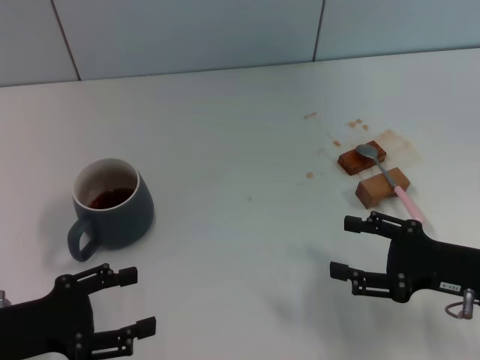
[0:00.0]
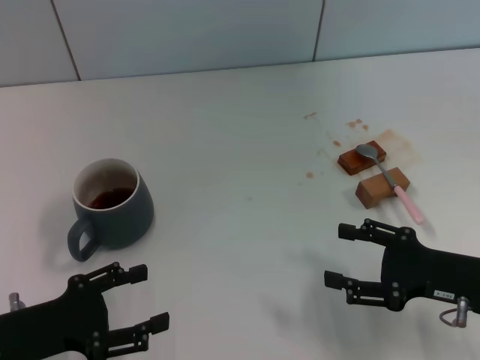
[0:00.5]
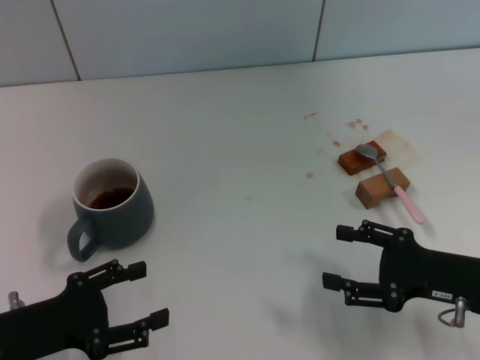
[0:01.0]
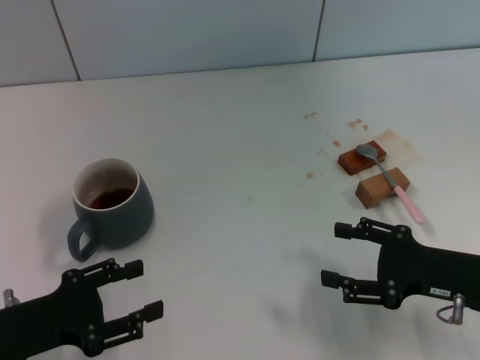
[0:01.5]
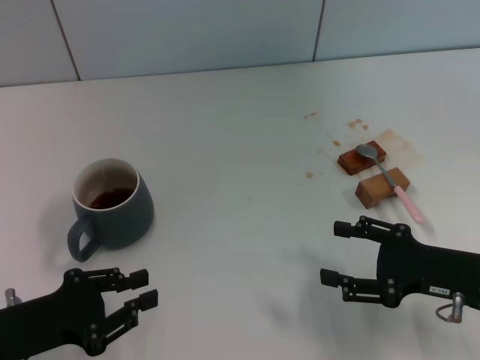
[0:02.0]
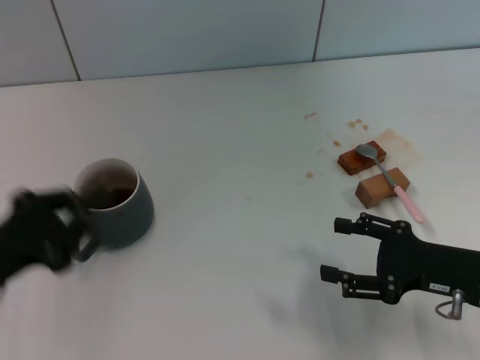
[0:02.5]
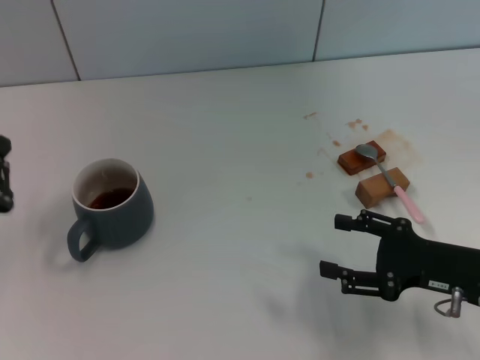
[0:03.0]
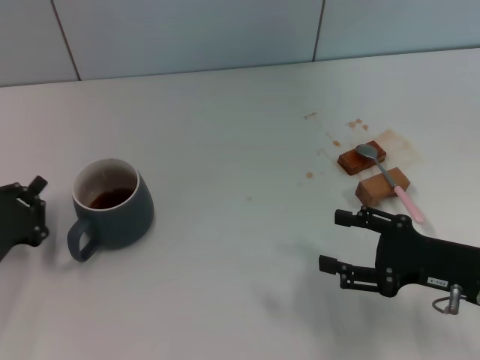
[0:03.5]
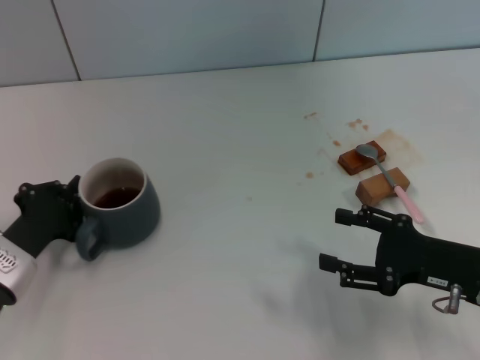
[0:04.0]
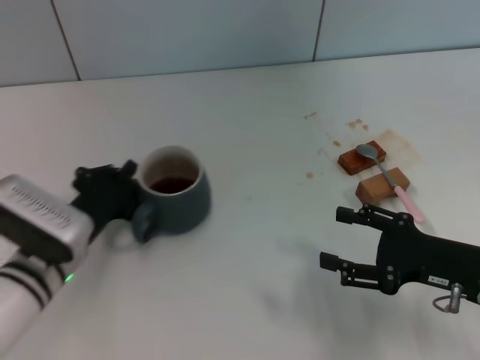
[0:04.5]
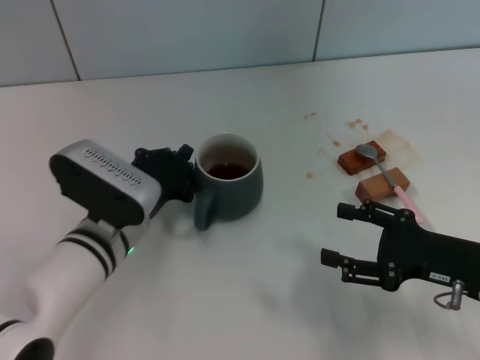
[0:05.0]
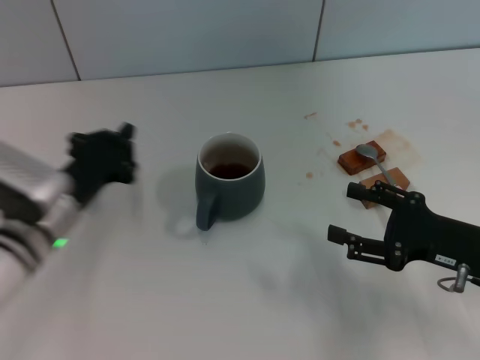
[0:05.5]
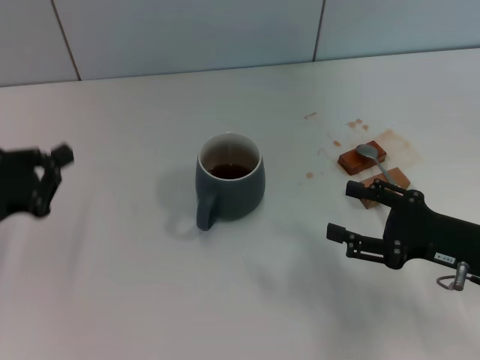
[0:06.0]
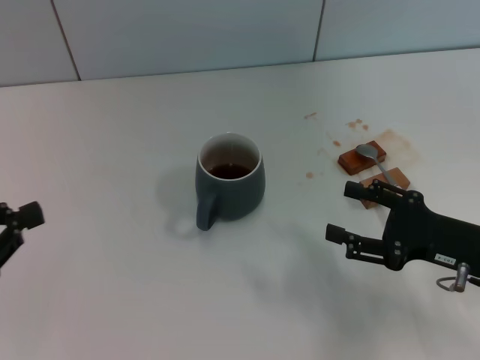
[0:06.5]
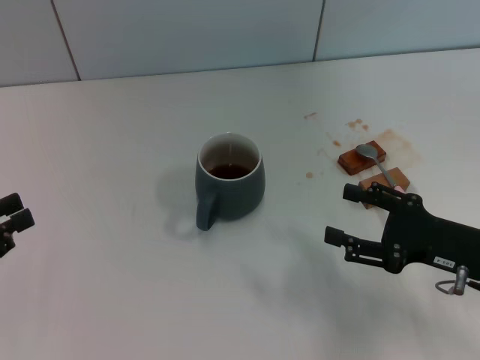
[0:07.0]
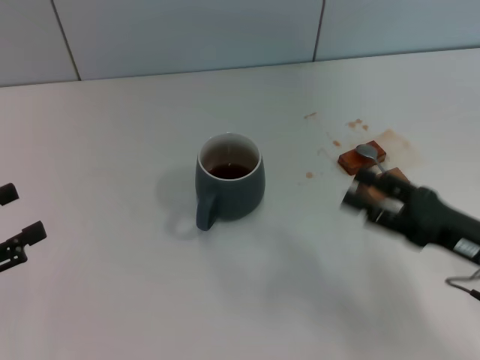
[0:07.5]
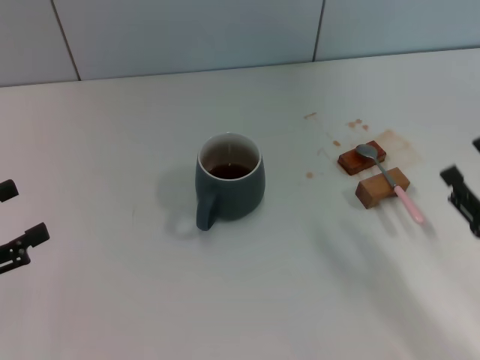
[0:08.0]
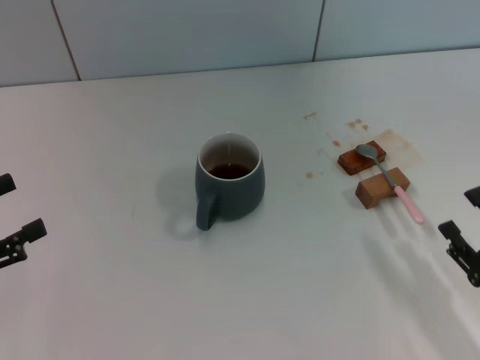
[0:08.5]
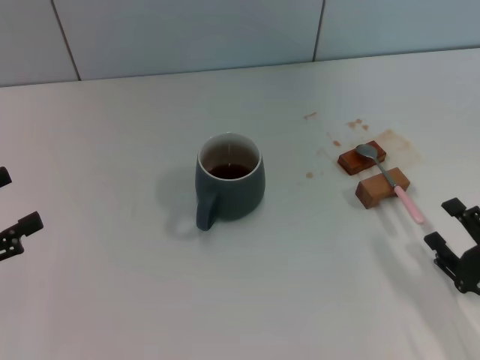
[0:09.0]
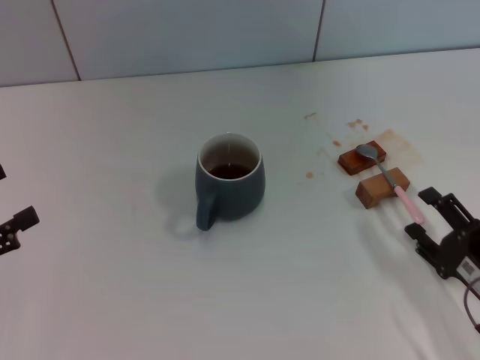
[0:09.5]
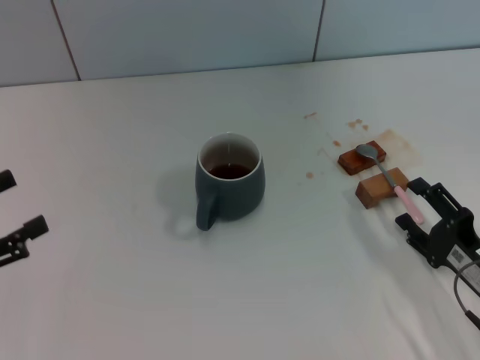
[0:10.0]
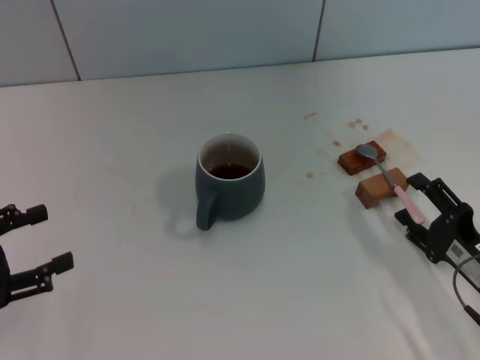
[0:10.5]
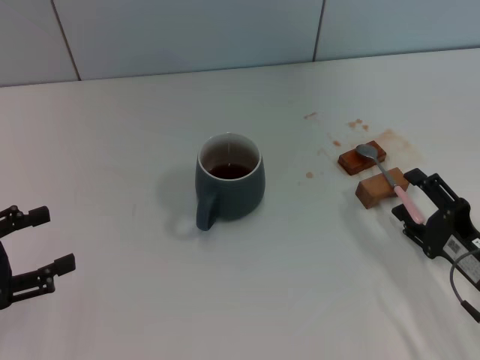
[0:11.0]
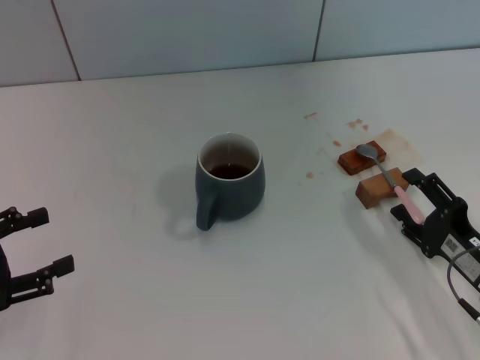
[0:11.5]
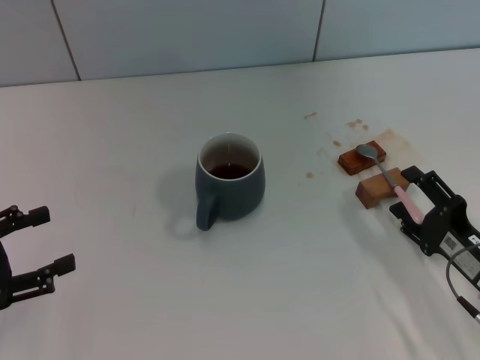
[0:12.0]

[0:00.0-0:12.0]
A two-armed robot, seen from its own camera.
Task of the whole recording: Move the grey cup to the center, lift the pink spoon, stir it three times in the cup, and put the spoon into the cup.
Step, 0:00.0 to 0:05.0: Move the cup with coffee to the center of view with the left gripper.
0:00.0 to 0:02.0: The left gripper closes.
0:02.0 to 0:04.0: The left gripper heads forward, covering approximately 5 cm, and closes up.
0:04.0 to 0:06.0: The left gripper is displaced upward by approximately 5 cm, and goes to the right and returns, some 15 cm each way.
0:06.0 to 0:08.0: Both grippers move backward, approximately 5 cm. The left gripper opens up.
0:08.0 to 0:12.0: The grippers move only a little.

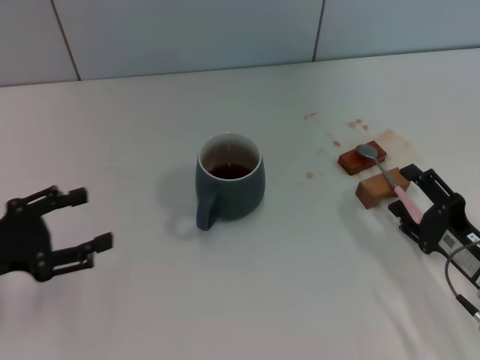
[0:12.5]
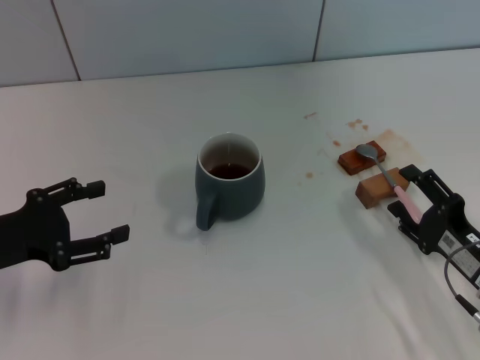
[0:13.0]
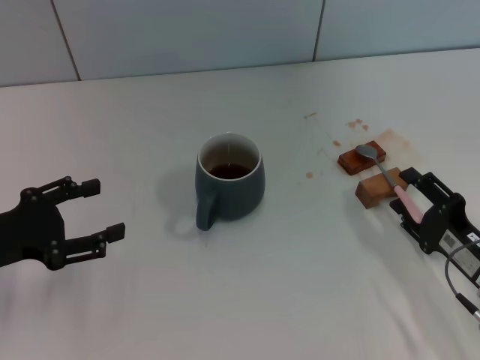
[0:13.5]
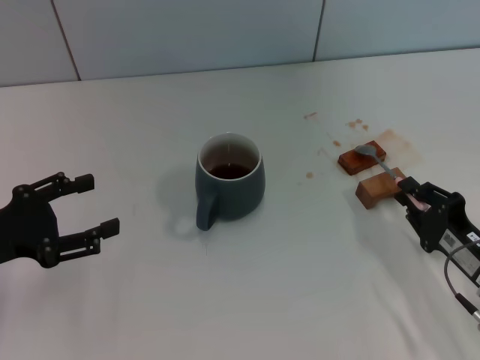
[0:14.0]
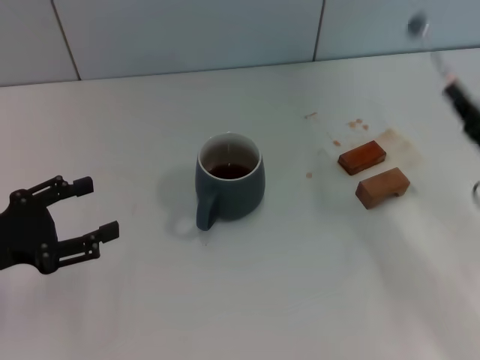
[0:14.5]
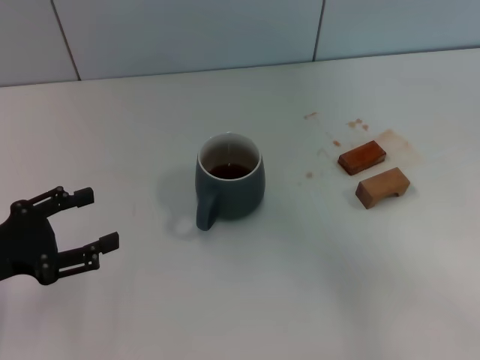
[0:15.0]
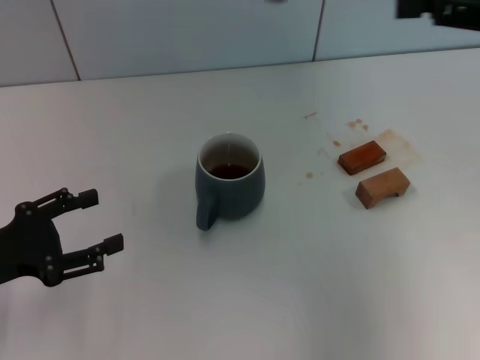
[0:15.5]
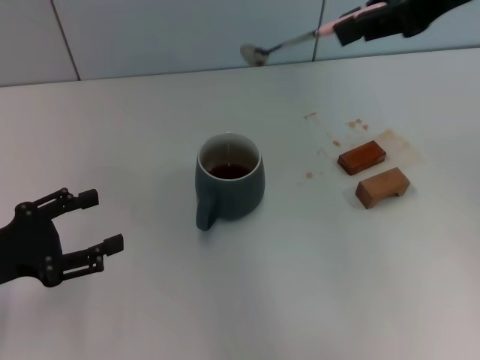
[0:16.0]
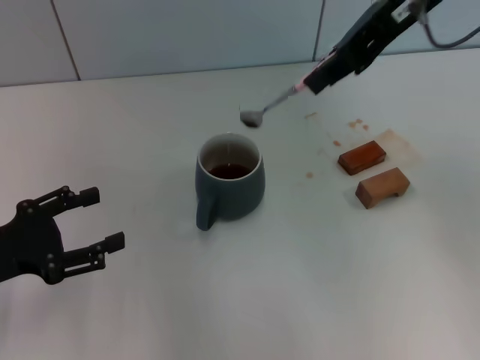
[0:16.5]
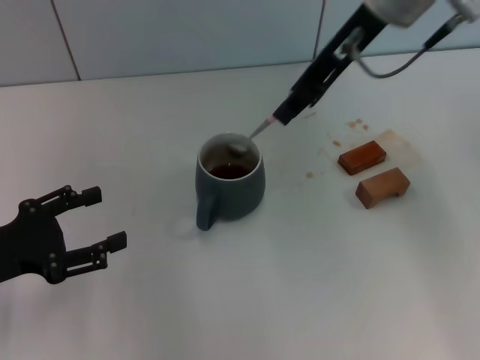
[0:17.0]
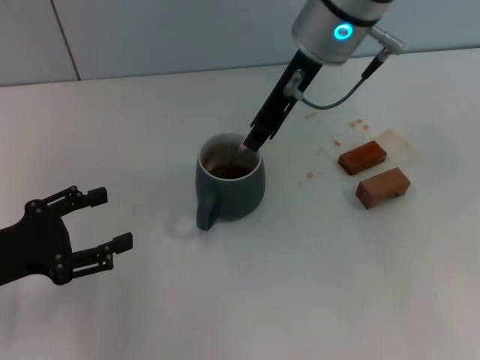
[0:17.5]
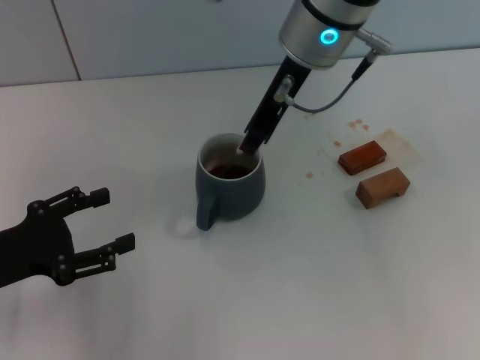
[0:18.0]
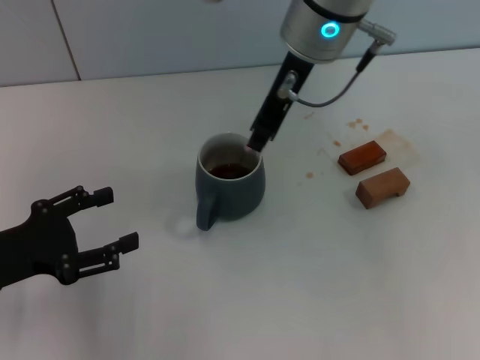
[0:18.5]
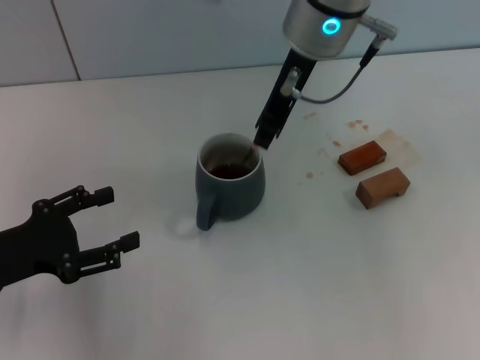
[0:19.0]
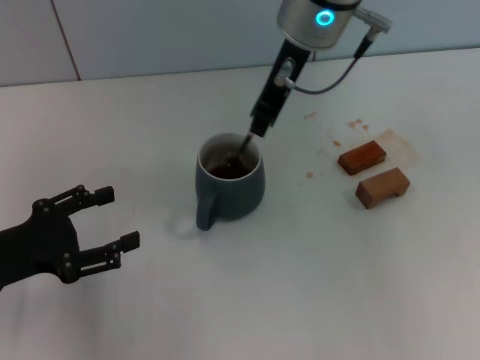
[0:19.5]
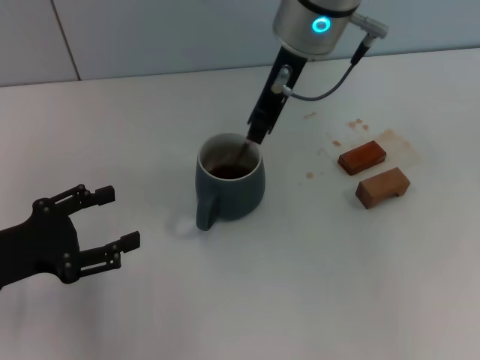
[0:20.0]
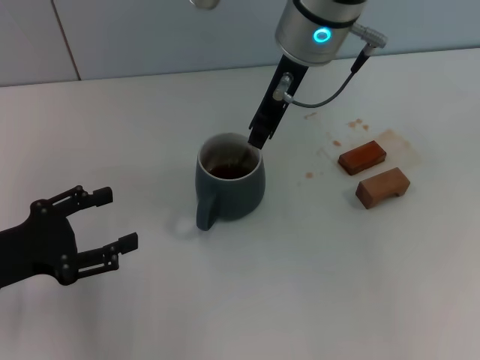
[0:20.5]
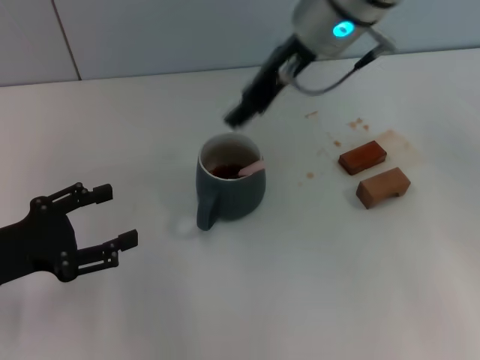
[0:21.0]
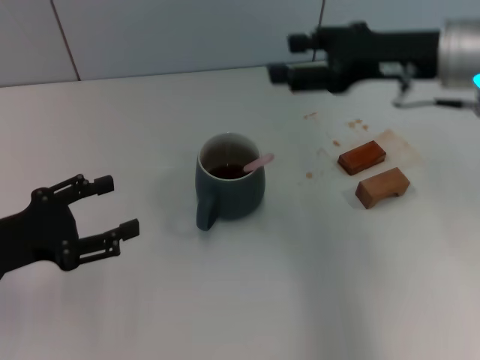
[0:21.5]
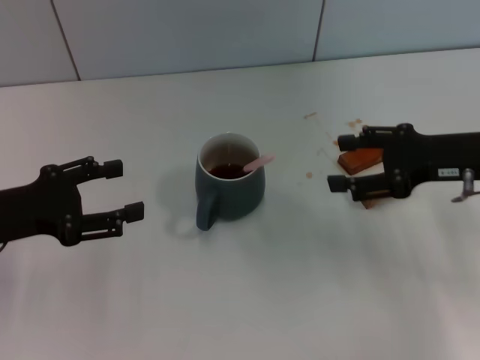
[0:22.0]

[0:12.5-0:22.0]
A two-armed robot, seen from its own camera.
Task of the whole recording: Move the grey cup to the center, lift the pink spoon, stir it three times in the cup, and put the spoon into the cup.
Step, 0:12.5 to 0:14.5: Pick up the spoon with the right gripper.
Step, 0:15.0 to 0:20.0: Stir the coffee in the cup with the right gripper.
0:12.5 to 0:14.5: The right gripper heads upward, covering approximately 5 cm, and closes its fingers.
0:14.5 to 0:16.5: The right gripper heads upward, to the left and forward, covering some 35 cm.
0:16.5 to 0:18.0: The right gripper heads to the left and downward, covering approximately 15 cm.
0:18.0 to 0:20.0: There are only small adjustments of the grippers.
0:20.0 to 0:22.0: The left gripper ends up roughly 5 cm from where it was. Meanwhile the right gripper moves to the right, downward and backward, approximately 30 cm, and opens.

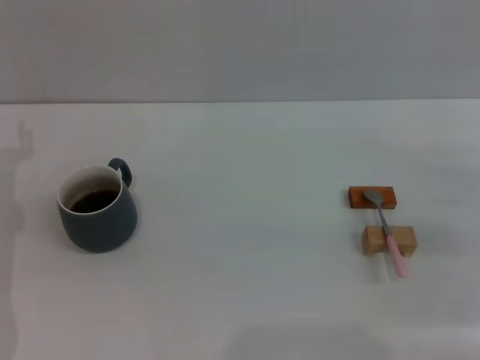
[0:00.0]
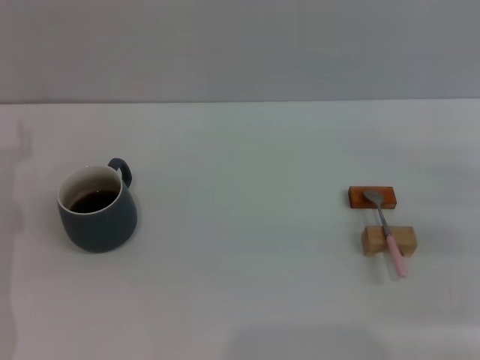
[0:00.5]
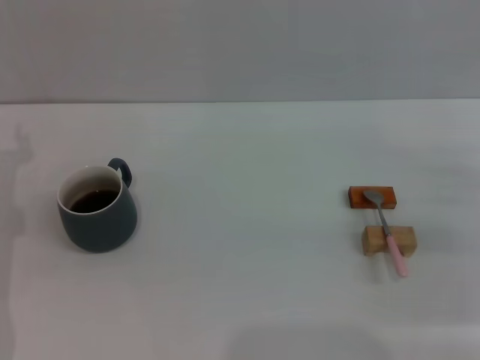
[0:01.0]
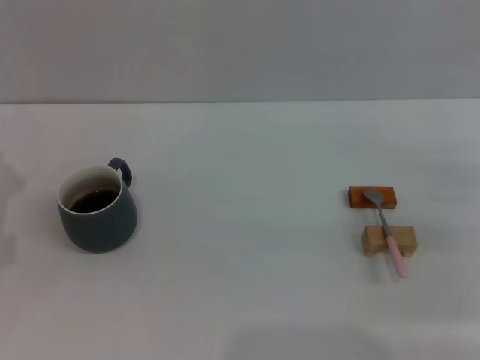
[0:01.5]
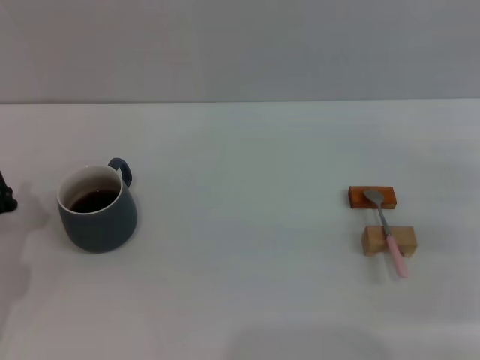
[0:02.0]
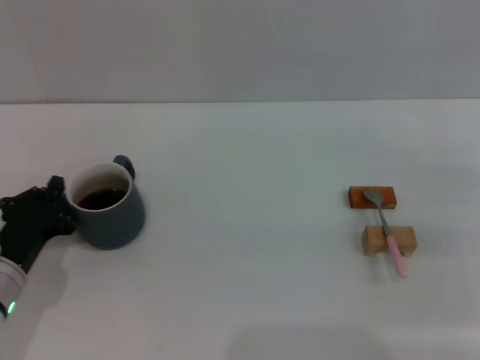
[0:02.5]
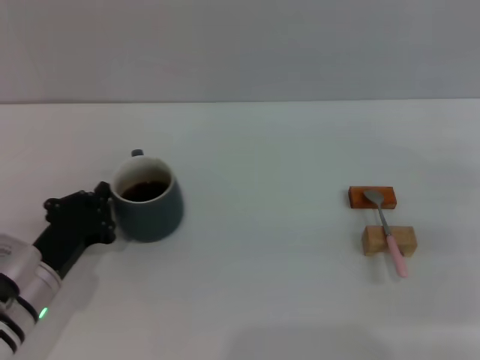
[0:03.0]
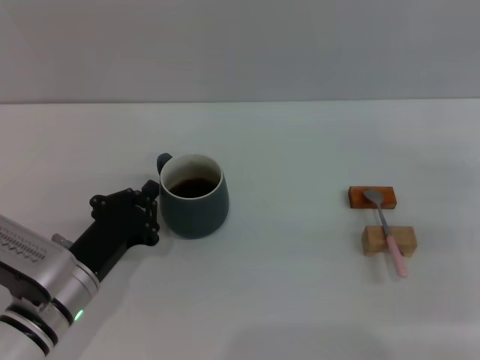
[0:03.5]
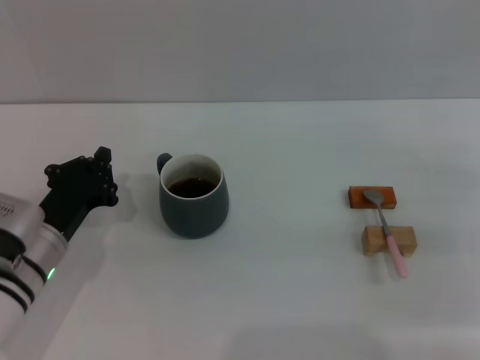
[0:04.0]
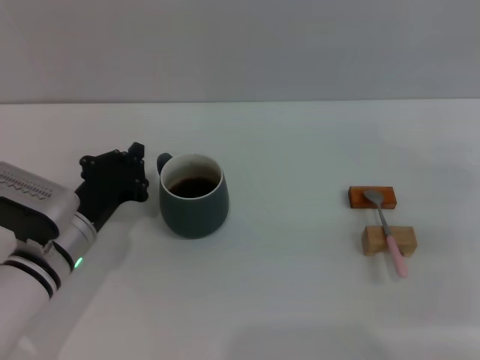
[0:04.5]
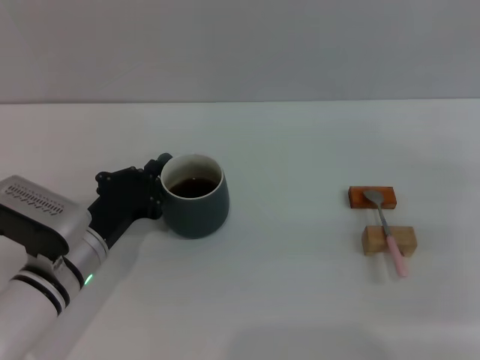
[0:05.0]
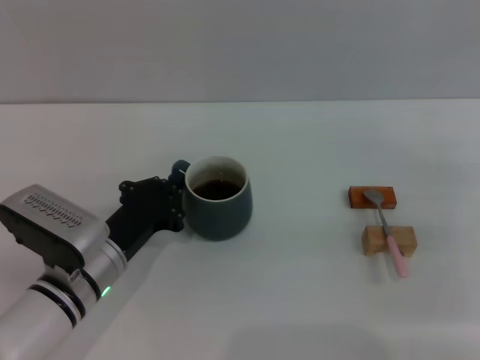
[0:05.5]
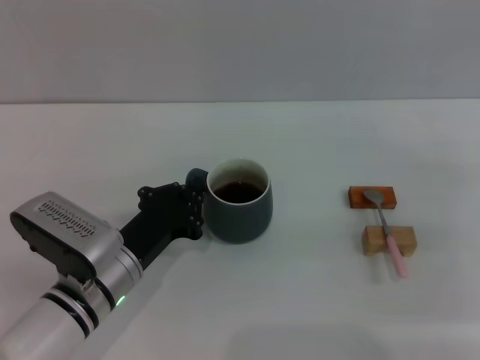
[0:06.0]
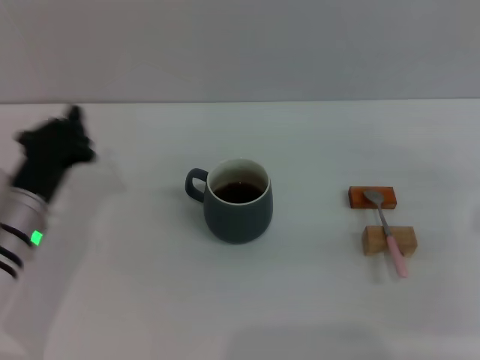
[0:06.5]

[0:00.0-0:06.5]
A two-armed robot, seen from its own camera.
Task of the whole recording: Move the grey cup to the center, lift the pink spoon, stir it three times in the cup, and put the spoon into the cup.
Step, 0:00.0 to 0:06.0: Move the cup with coffee to the center of view with the left gripper.
0:02.0 to 0:04.5: The left gripper goes some 10 cm to the right.
0:04.5 to 0:06.5: The grippers make only small movements.
